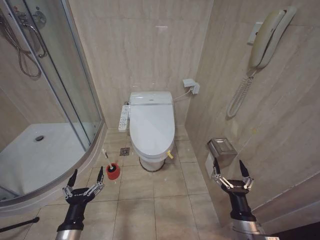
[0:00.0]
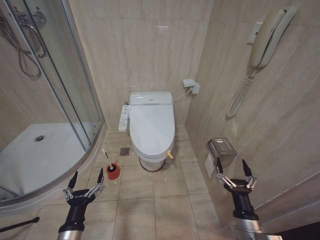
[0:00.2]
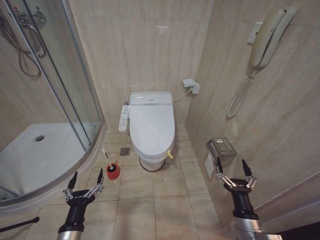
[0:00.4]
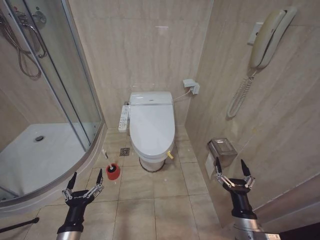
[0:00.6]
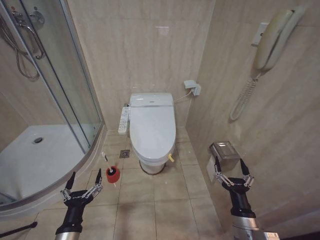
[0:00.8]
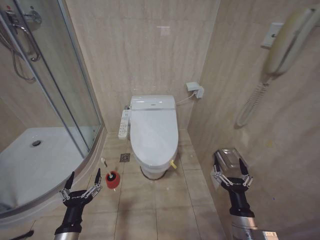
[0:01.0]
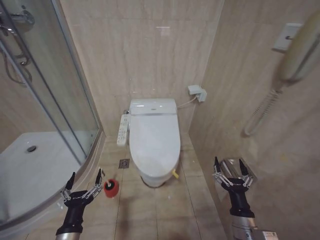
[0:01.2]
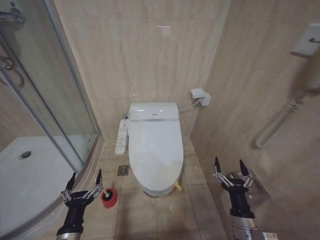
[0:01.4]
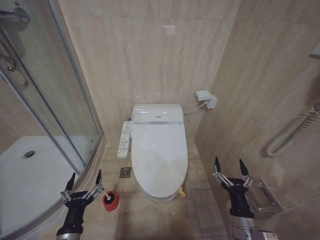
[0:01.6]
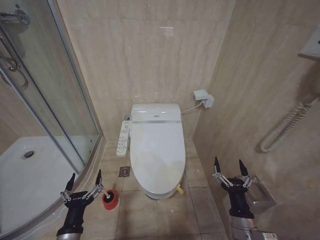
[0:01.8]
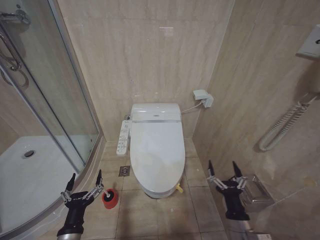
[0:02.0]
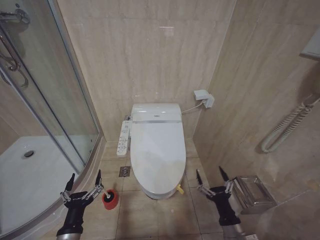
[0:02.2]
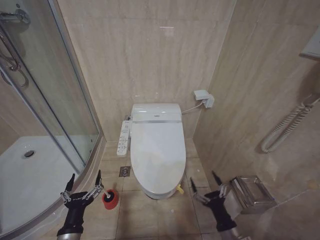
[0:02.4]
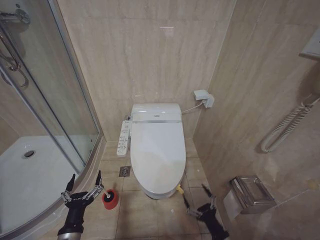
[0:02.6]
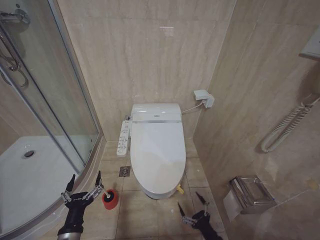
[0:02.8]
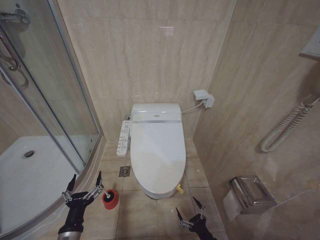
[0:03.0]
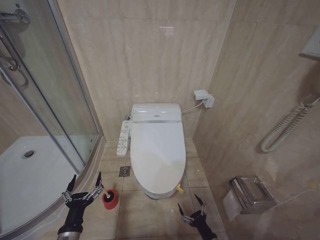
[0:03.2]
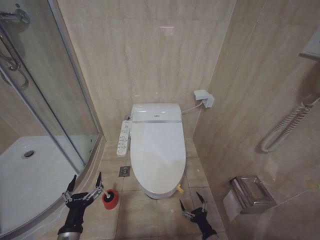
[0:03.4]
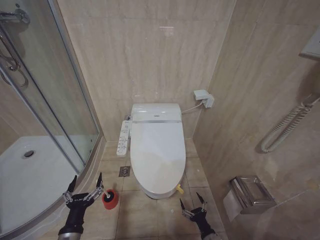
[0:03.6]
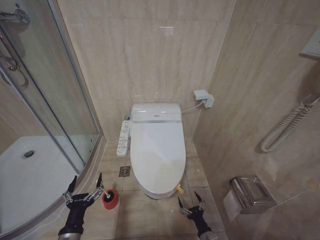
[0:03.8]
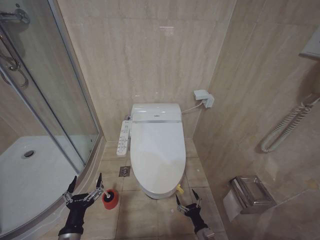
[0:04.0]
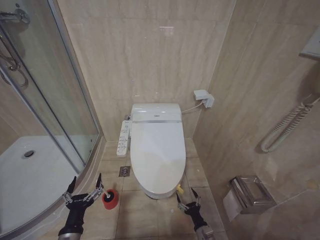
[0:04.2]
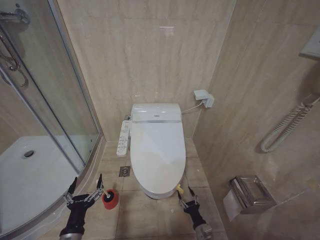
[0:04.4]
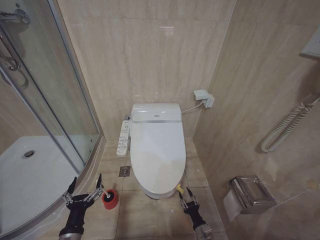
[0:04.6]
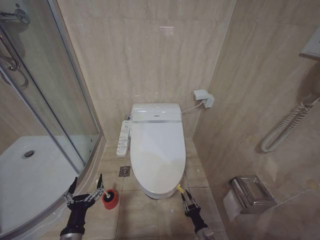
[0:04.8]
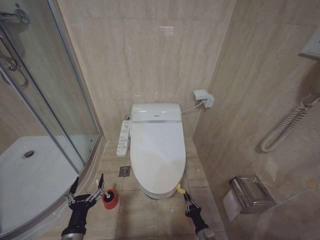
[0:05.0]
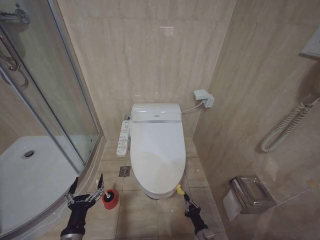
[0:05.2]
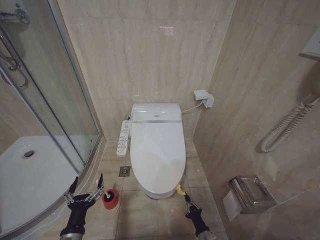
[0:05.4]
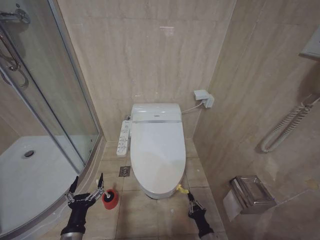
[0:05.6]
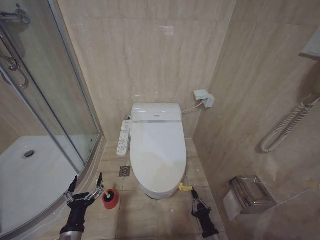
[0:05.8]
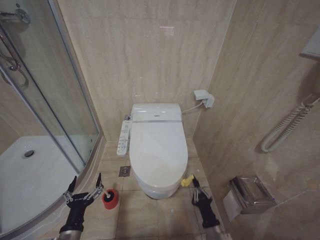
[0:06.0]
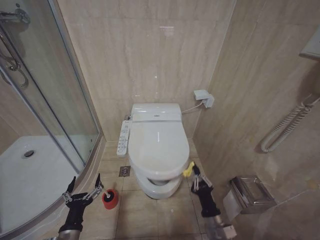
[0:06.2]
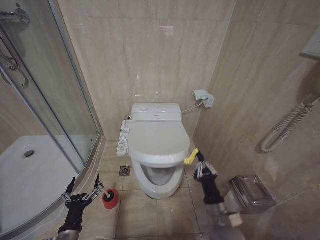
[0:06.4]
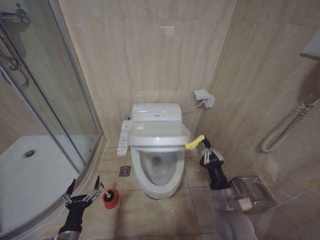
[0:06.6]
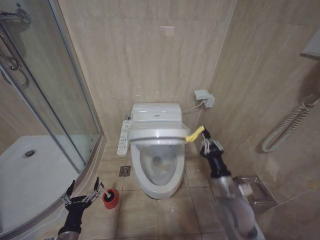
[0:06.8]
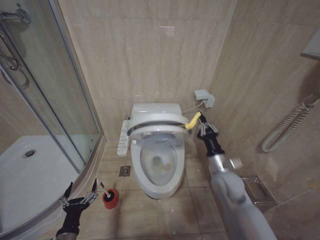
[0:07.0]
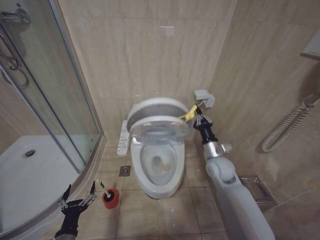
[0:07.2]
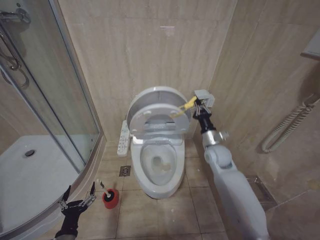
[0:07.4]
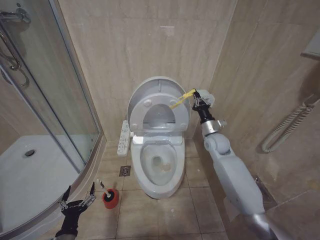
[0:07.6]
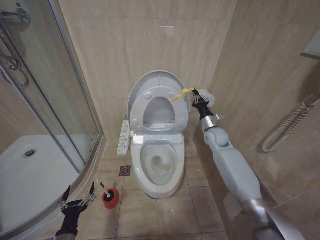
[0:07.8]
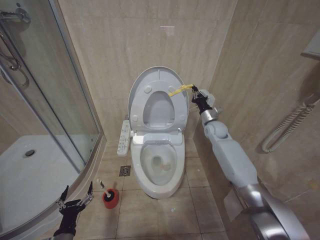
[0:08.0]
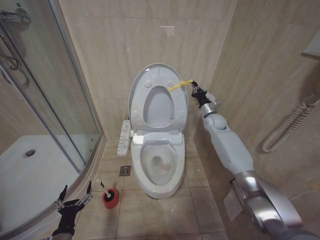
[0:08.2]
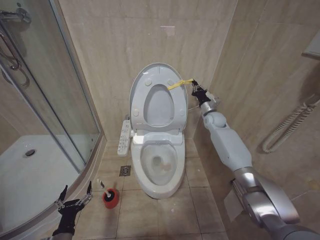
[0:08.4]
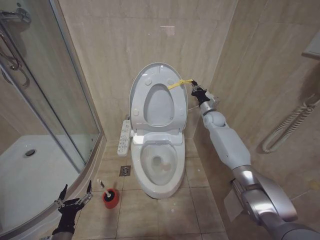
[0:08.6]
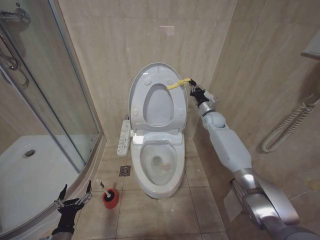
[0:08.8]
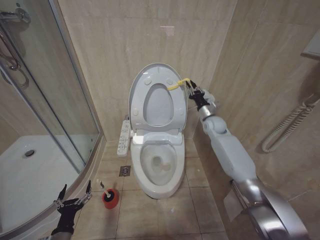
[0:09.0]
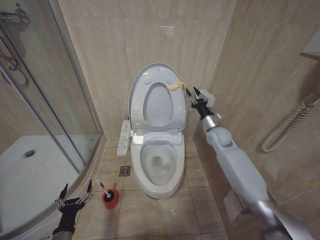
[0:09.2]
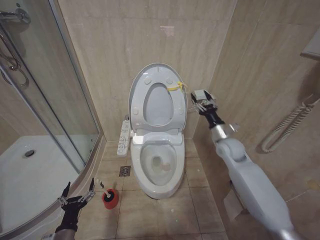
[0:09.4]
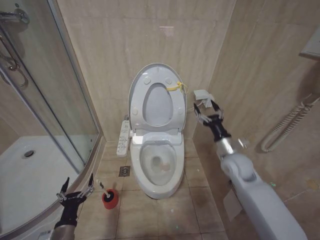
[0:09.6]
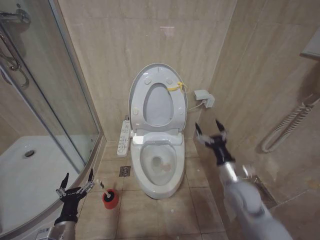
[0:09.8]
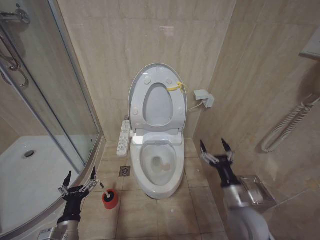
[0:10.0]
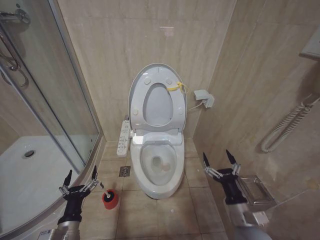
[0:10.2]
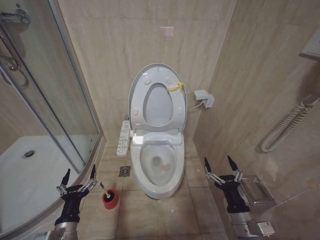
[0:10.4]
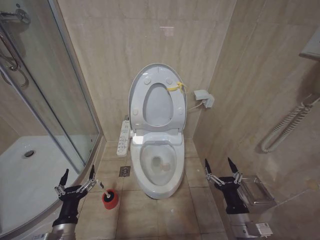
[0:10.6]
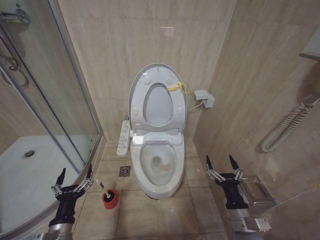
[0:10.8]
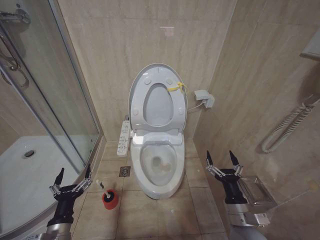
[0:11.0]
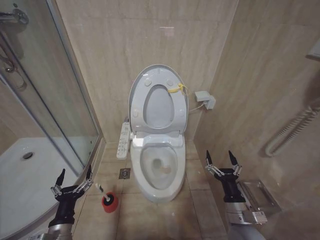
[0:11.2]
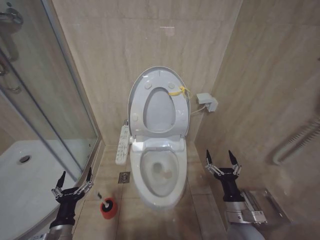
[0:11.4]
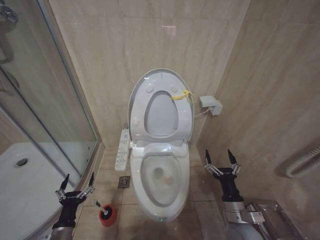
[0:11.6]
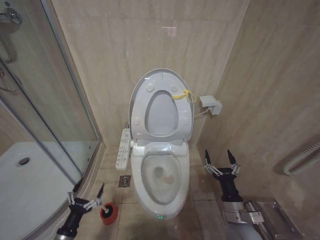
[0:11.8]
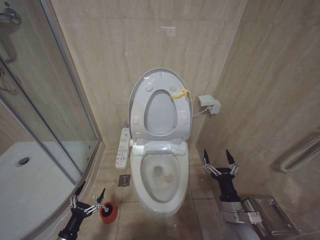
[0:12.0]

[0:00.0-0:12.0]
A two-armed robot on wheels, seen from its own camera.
Task of the whole recording: Open the toilet lid, clean the toilet bowl with a toilet brush, close the toilet lid, and flush.
0:01.6 to 0:03.0: The right gripper is displaced downward by approximately 15 cm.
0:03.0 to 0:04.4: The right gripper travels downward and forward by roughly 10 cm.
0:04.4 to 0:06.0: The right gripper travels upward by about 10 cm, and closes its fingers.
0:06.0 to 0:07.6: The right gripper moves forward and upward, approximately 40 cm. The left gripper shifts by some 5 cm.
0:07.6 to 0:09.0: The right gripper goes some 10 cm forward.
0:09.0 to 0:10.4: The left gripper goes some 5 cm upward, while the right gripper heads backward and downward, covering approximately 40 cm, and opens.
0:10.4 to 0:12.0: The left gripper goes some 15 cm downward and to the left.

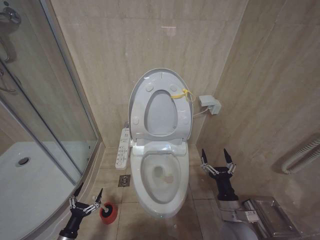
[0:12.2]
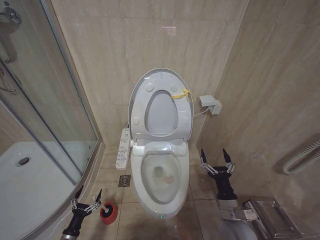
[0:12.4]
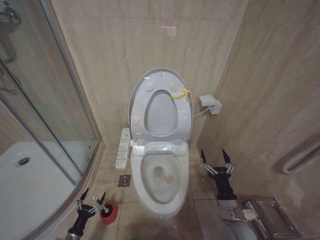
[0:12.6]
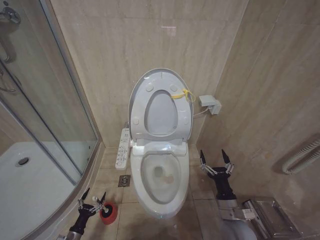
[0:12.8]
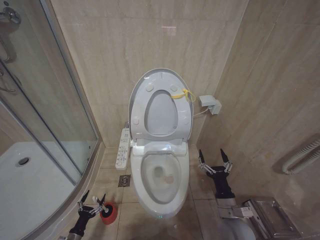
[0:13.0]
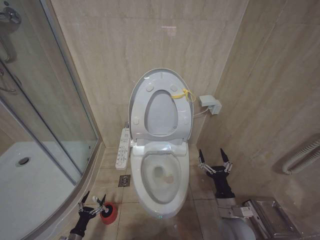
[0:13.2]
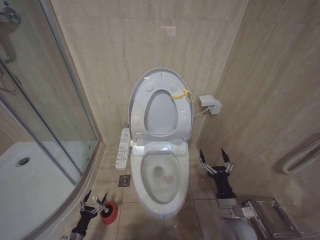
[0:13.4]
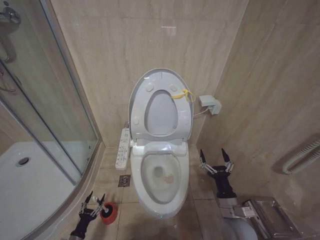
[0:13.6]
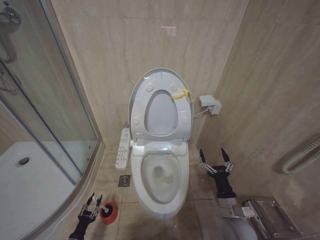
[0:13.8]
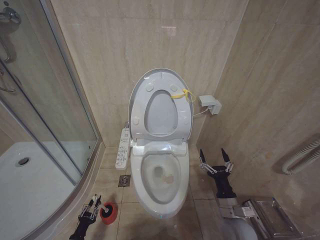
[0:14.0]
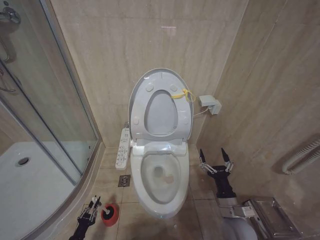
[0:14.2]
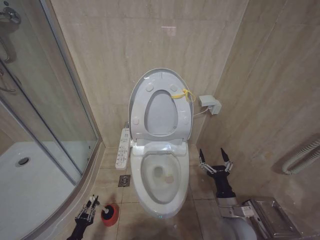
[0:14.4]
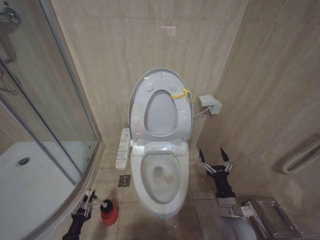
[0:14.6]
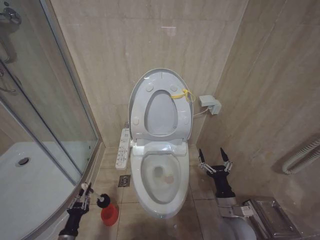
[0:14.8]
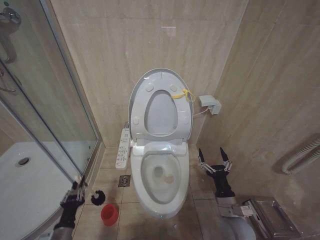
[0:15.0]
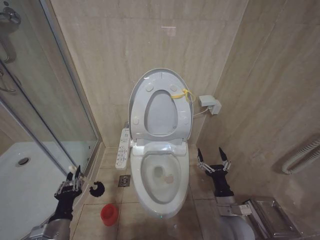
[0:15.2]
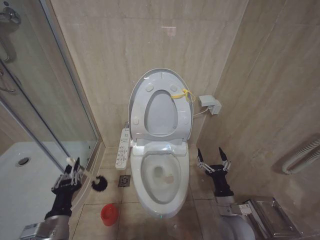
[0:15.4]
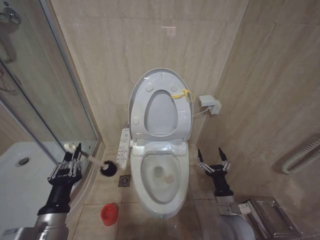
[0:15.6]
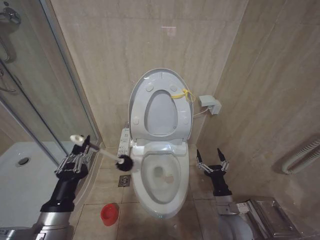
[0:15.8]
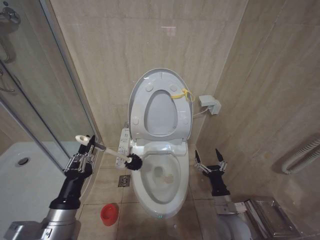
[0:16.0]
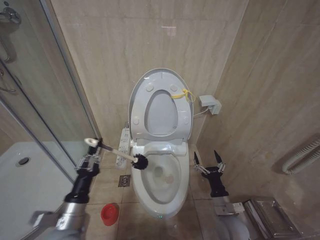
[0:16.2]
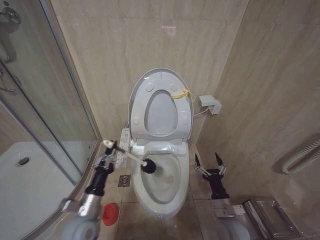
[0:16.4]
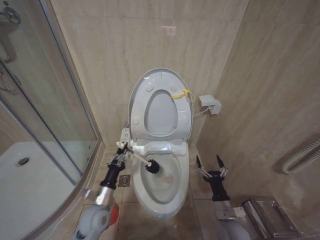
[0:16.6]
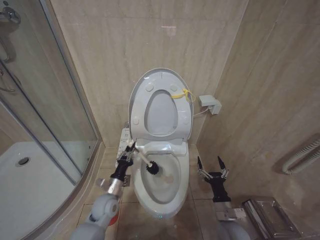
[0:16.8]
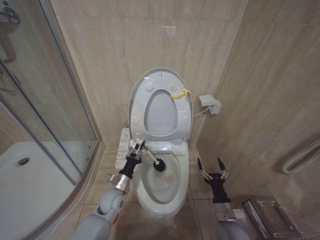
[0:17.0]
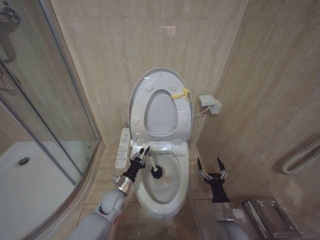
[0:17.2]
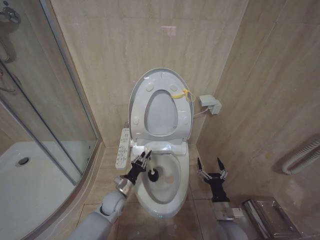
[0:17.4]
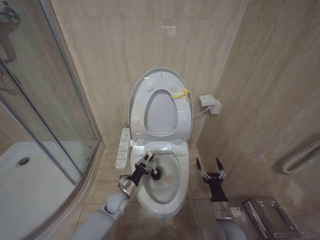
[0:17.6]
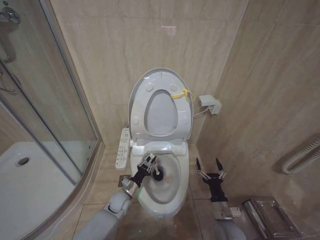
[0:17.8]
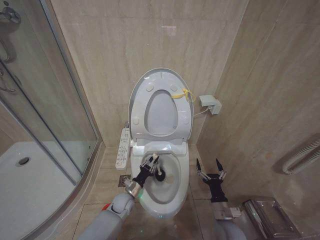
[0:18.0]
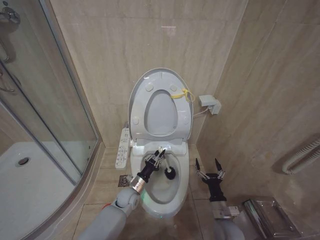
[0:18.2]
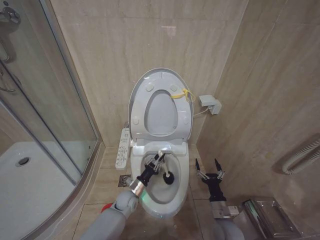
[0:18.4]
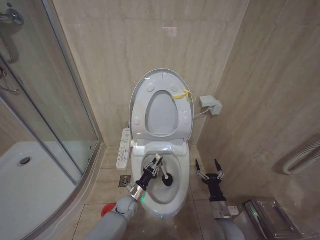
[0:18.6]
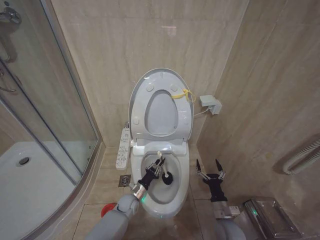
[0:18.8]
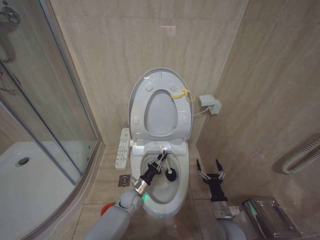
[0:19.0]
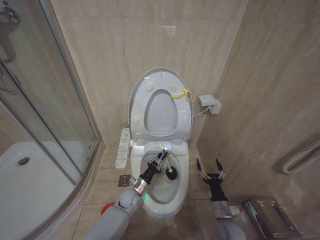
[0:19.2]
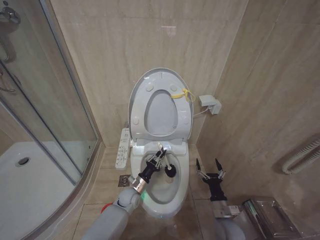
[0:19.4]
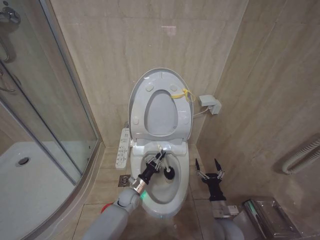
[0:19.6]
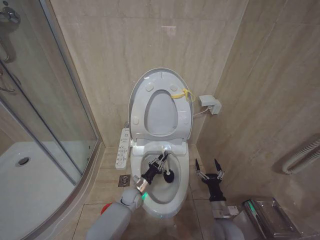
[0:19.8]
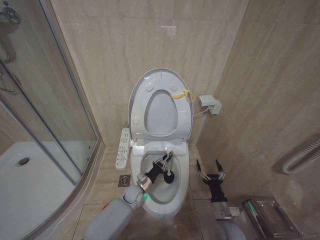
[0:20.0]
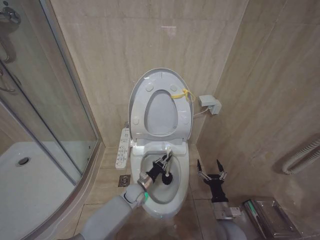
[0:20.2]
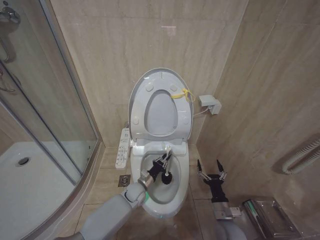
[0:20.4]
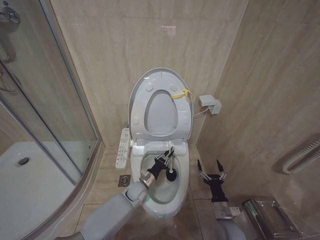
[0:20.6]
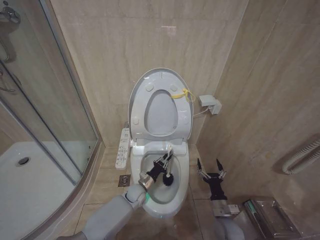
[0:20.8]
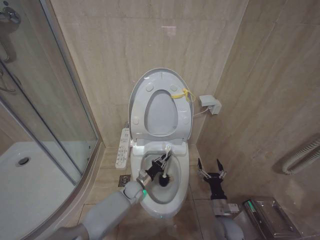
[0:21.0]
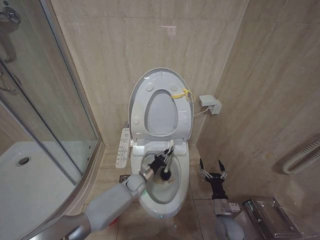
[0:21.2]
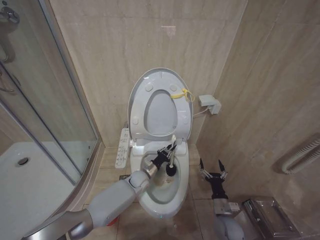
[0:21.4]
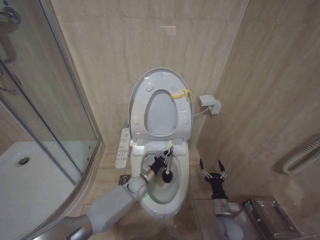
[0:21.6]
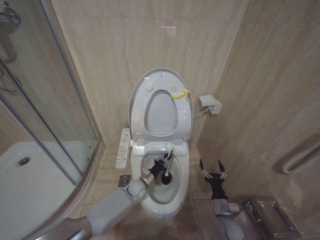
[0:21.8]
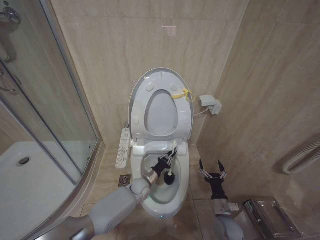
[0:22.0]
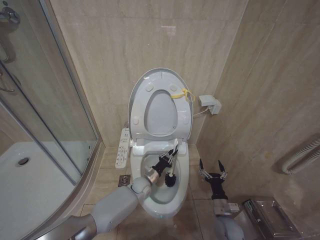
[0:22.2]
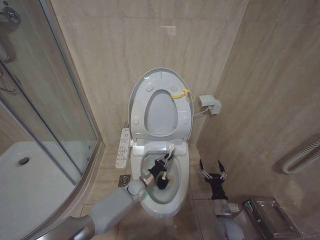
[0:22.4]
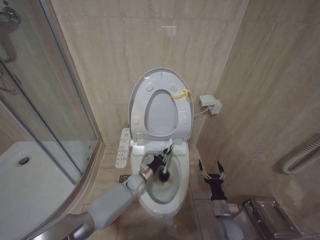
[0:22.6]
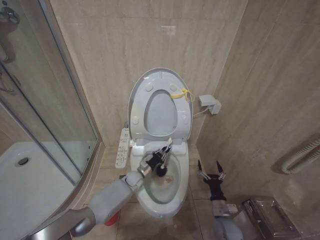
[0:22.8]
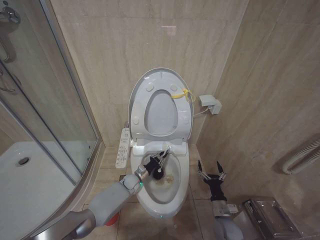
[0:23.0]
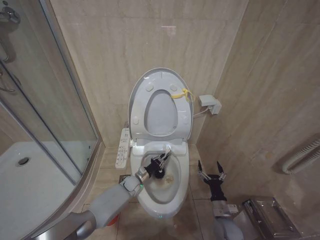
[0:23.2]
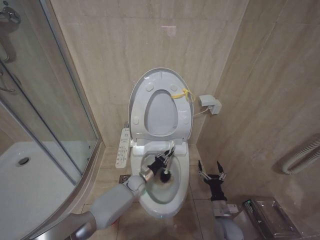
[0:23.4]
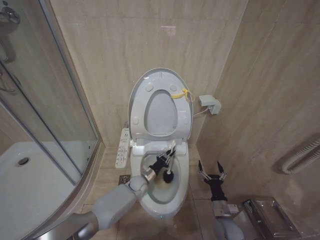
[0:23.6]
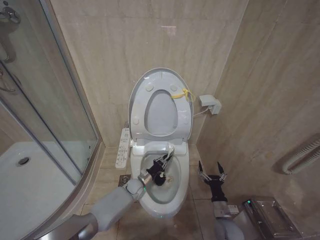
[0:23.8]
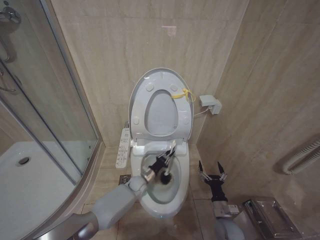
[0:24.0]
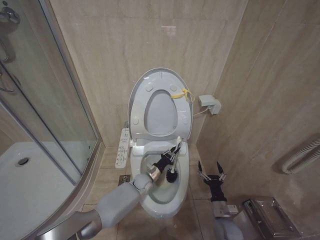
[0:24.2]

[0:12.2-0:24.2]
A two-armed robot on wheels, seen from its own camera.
Task of the whole recording: Open the toilet lid, clean the toilet bowl with a toilet brush, close the toilet lid, and flush.
0:12.2 to 0:13.8: The left gripper travels downward by about 10 cm, and closes up.
0:13.8 to 0:15.2: The left gripper moves upward, about 25 cm, and closes up.
0:15.2 to 0:16.6: The left gripper travels forward and to the right by some 15 cm, and reaches roughly 15 cm upward, then returns.
0:16.6 to 0:18.2: The left gripper moves forward, downward and to the right, approximately 20 cm.
0:18.2 to 0:19.8: There are only small adjustments of the grippers.
0:19.8 to 0:21.2: The left gripper moves approximately 5 cm.
0:22.6 to 0:24.2: The grippers stay close to where they were, moving slightly.
